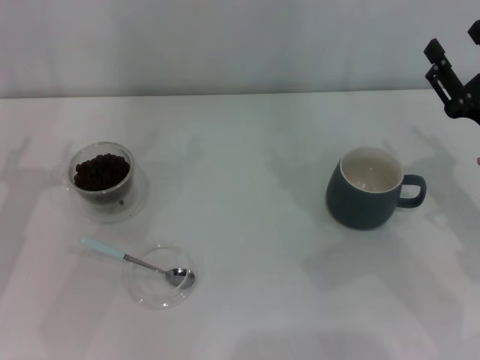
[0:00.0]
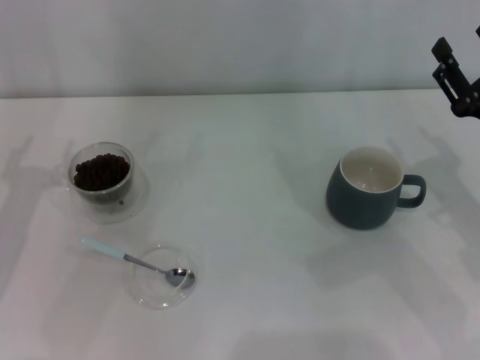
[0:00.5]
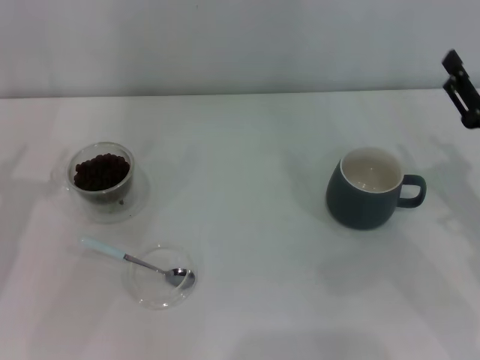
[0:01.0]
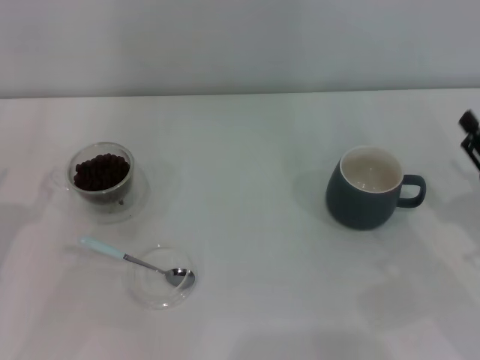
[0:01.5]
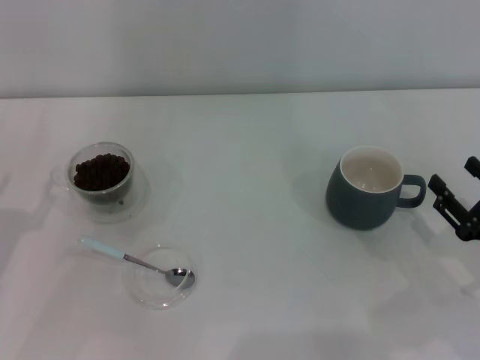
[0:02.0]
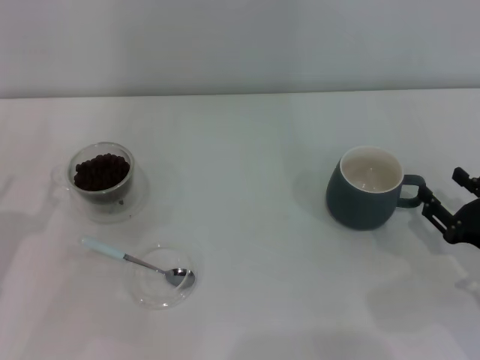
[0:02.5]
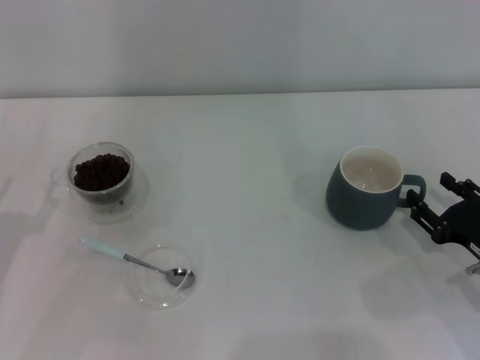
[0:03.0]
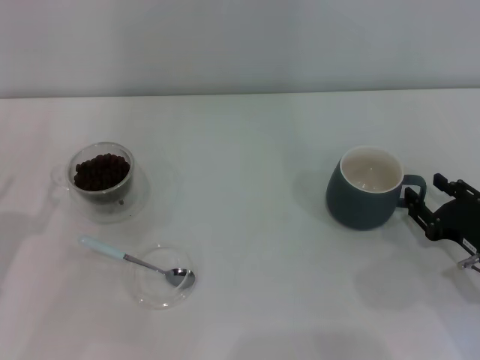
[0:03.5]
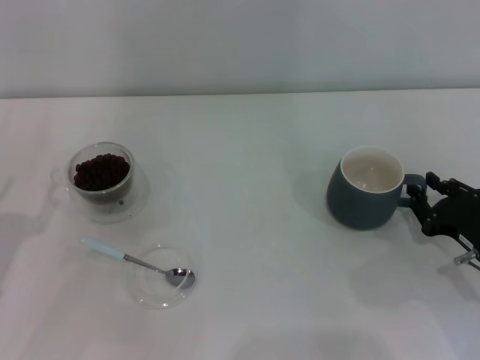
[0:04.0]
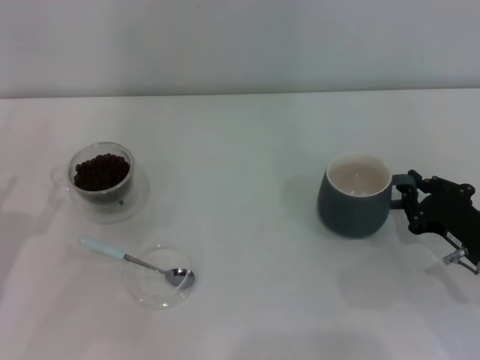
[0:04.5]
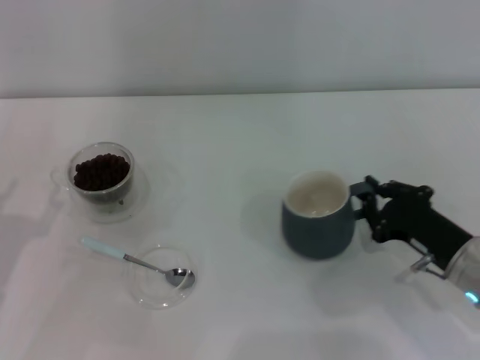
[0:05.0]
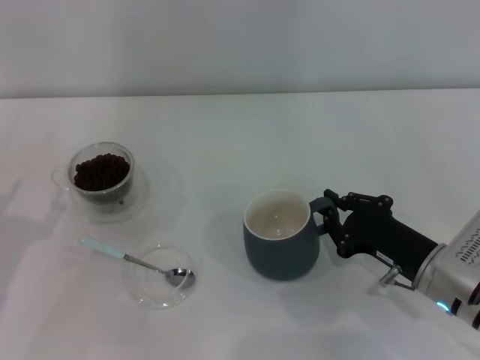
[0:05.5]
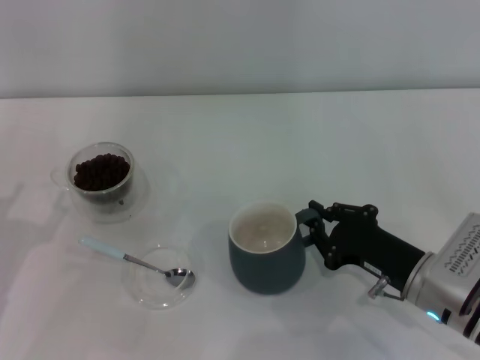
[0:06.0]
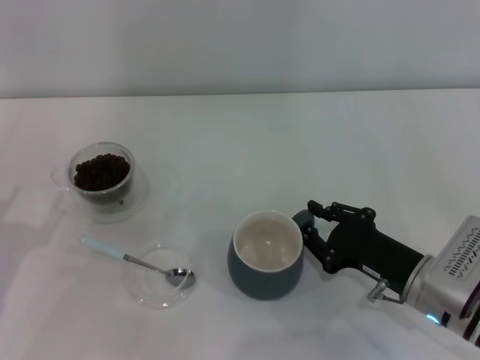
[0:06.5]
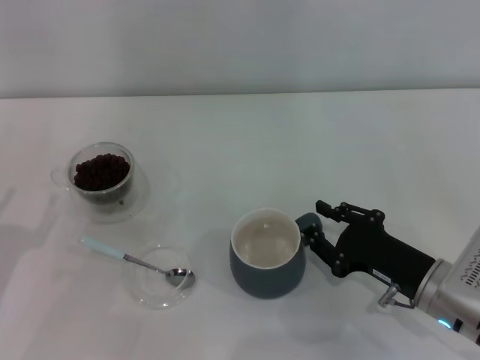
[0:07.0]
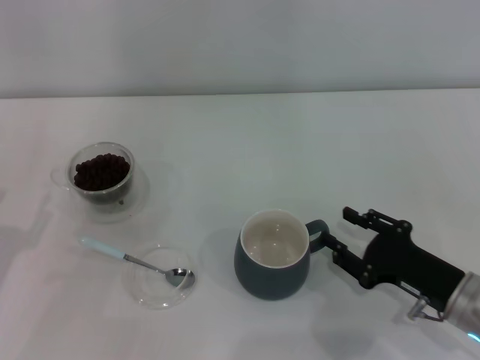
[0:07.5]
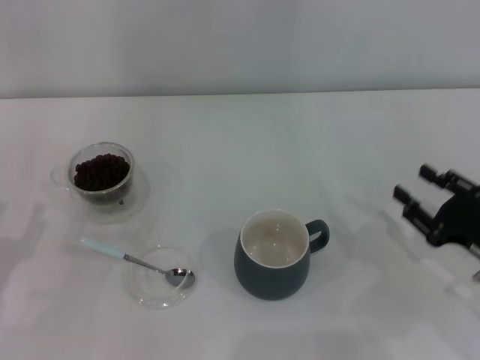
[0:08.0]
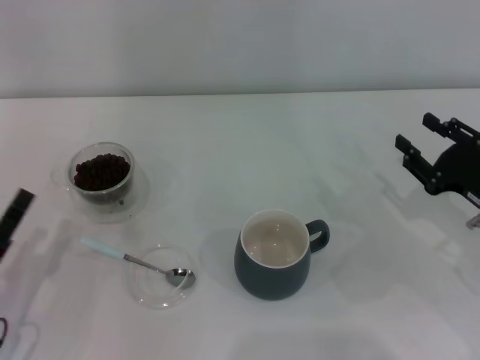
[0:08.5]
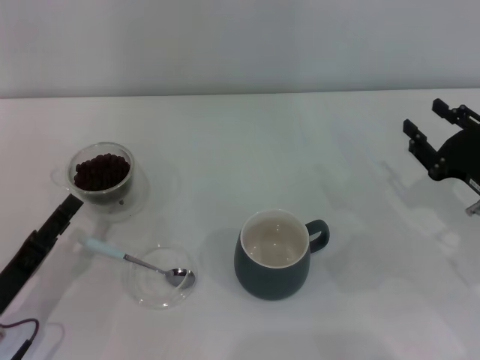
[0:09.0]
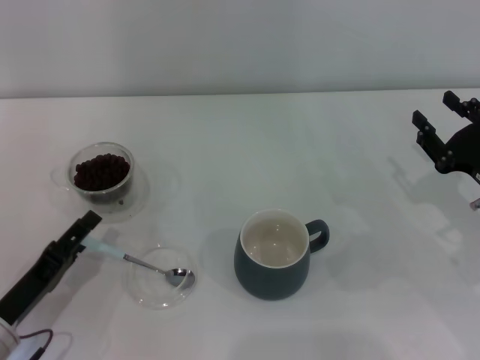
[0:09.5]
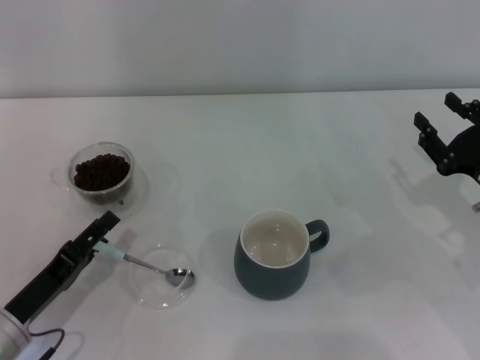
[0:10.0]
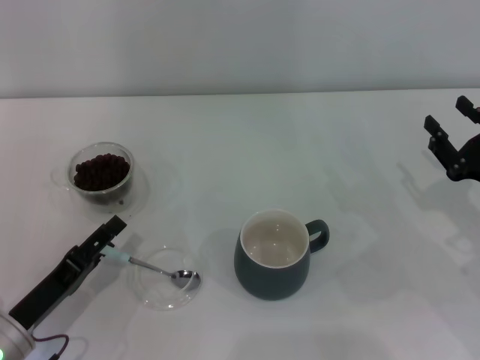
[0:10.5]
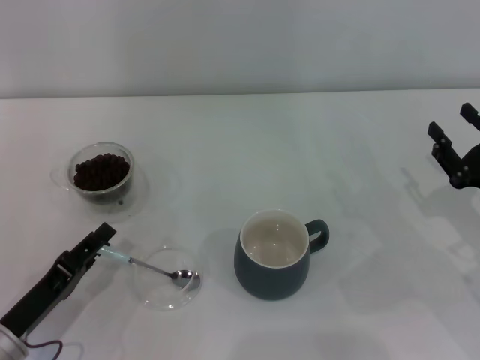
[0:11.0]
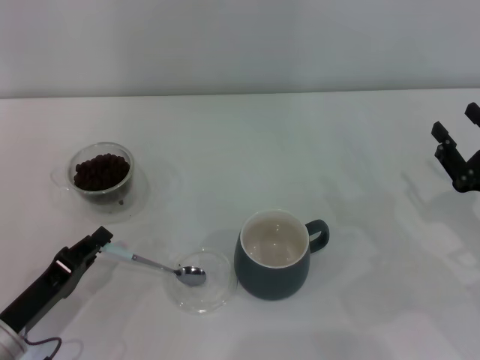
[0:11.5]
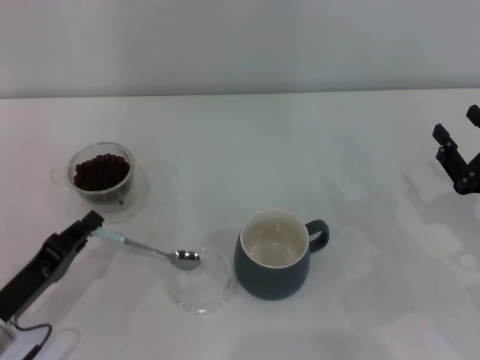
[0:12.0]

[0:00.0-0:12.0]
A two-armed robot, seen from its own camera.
Task of the whole recording: Use a blue spoon to take out the coffee beans from the glass and pour them into the gray cup.
Step, 0:00.0 to 0:07.5: Move the cup to the center of view with the left gripper.
0:00.0 to 0:02.0: The right gripper shifts about 10 cm backward and downward.
0:02.0 to 0:04.0: The right gripper closes its fingers.
0:04.0 to 0:06.0: The right gripper goes approximately 10 cm to the left, and closes its fingers.
0:06.0 to 0:08.0: The right gripper heads to the right, covering approximately 10 cm, and opens its fingers.
0:08.0 to 0:10.0: The right gripper goes approximately 5 cm forward. Meanwhile the left gripper is displaced to the right by about 5 cm.
0:10.0 to 0:12.0: The left gripper closes its fingers.

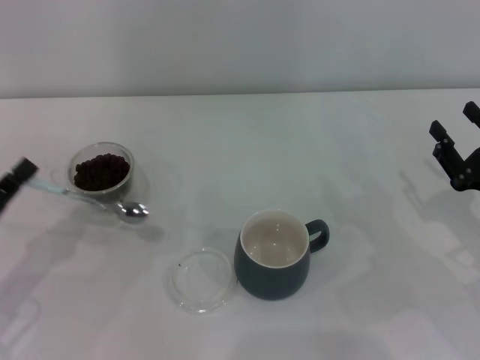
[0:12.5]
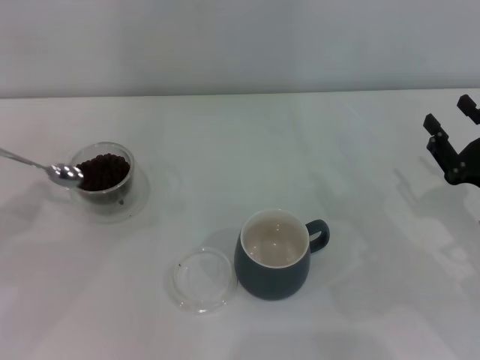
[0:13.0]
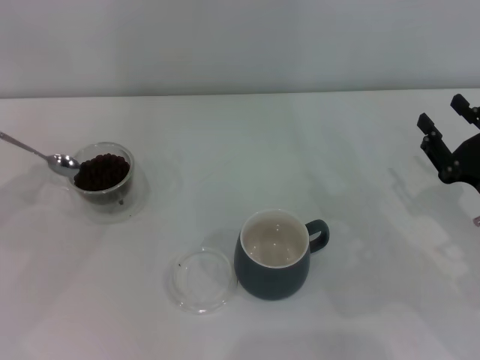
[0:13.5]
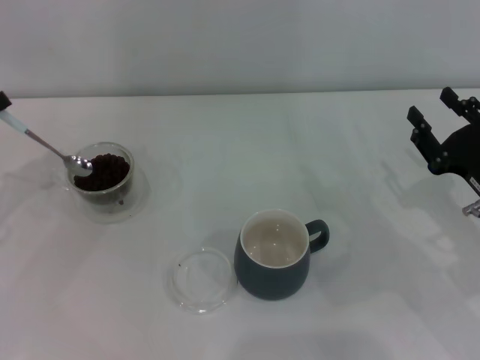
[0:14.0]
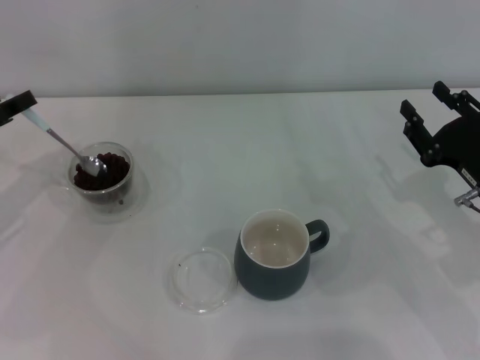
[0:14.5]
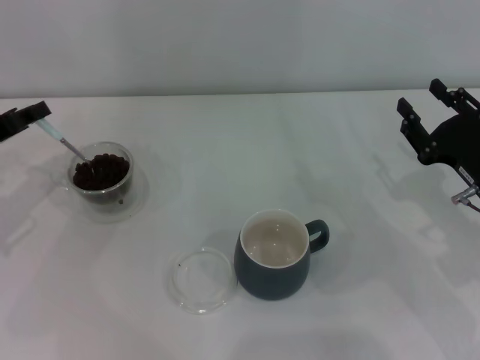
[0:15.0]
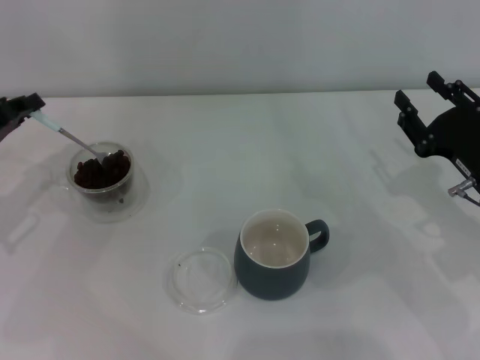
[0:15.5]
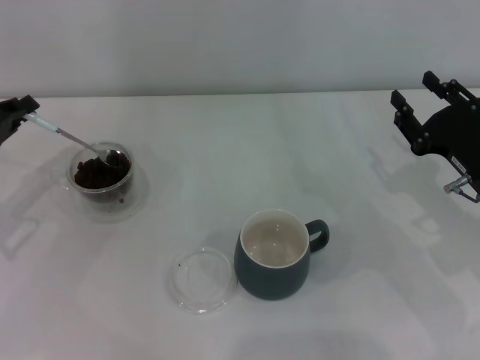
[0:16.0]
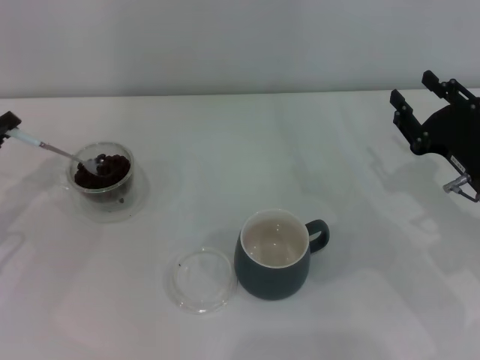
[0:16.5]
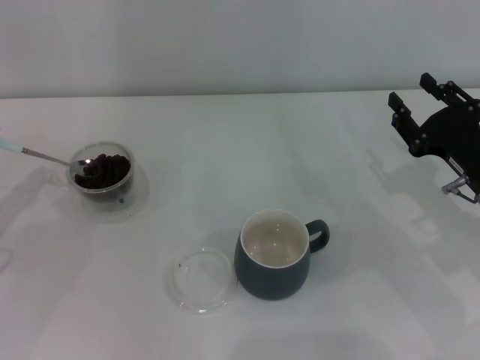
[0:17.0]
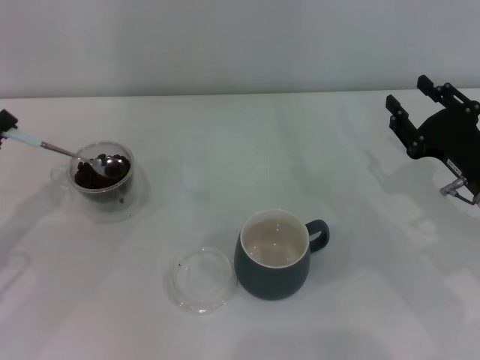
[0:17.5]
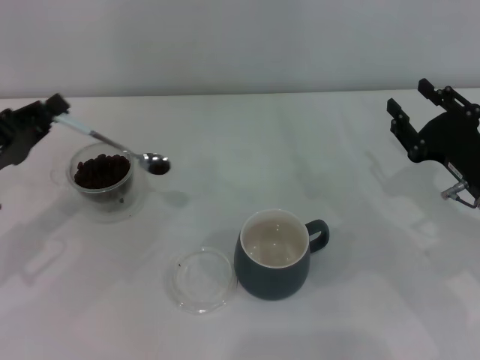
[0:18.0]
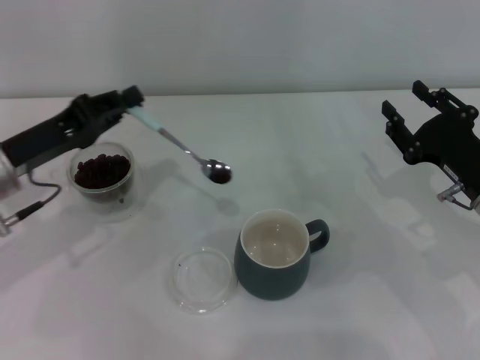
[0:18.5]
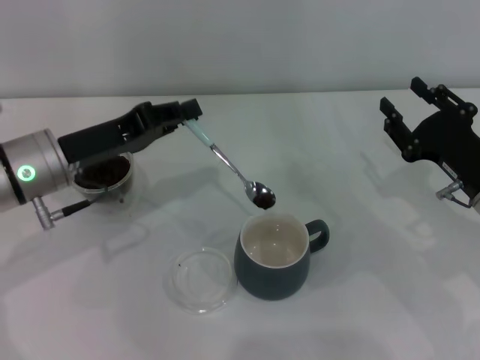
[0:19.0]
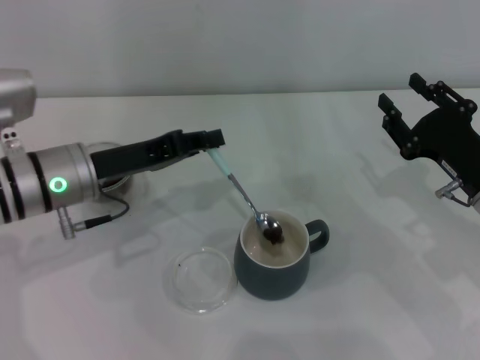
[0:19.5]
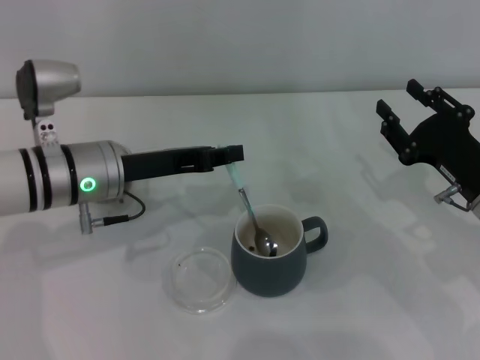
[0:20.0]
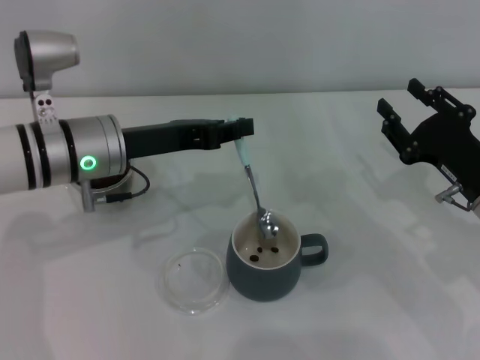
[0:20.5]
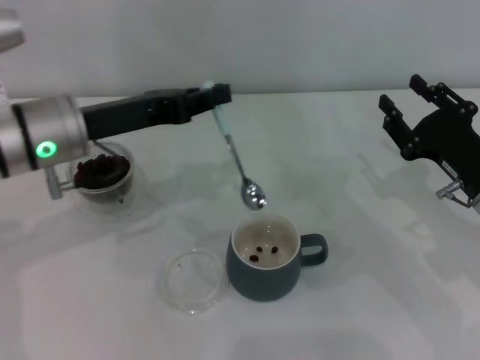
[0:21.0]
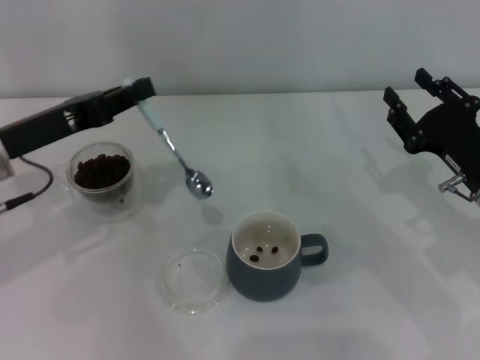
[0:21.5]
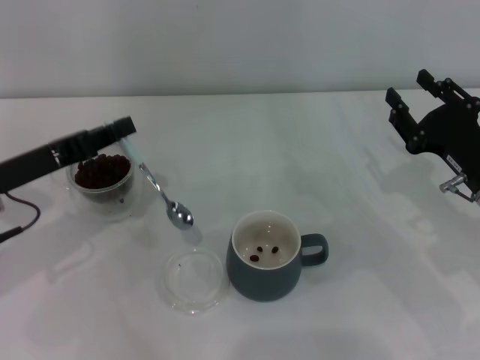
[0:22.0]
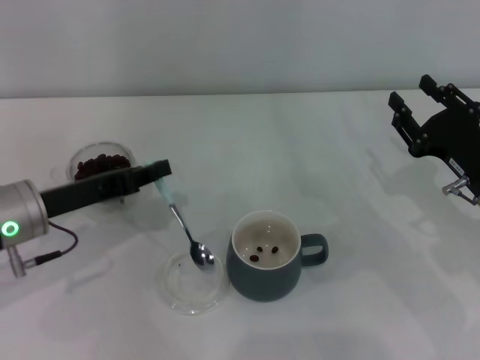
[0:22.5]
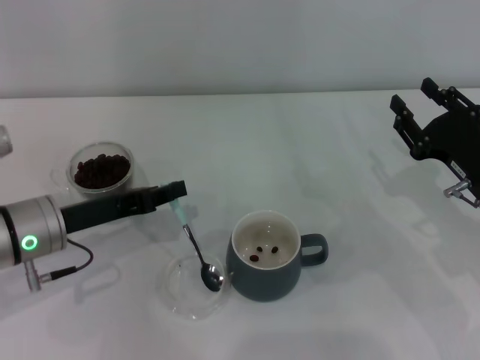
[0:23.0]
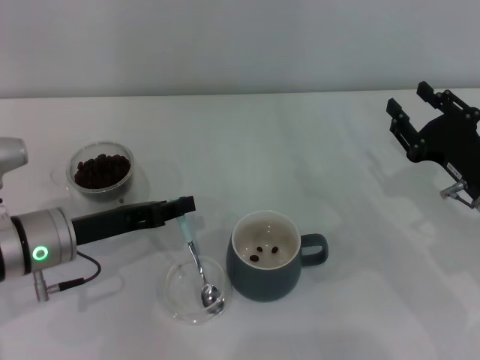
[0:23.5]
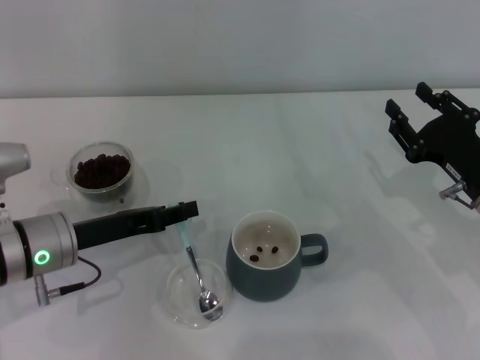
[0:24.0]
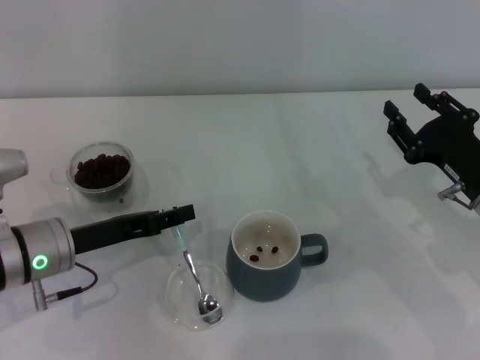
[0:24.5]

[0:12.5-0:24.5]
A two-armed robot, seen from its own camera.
Task of the whole recording: Use a blue spoon to take out the coffee beans from the glass and pour them into the gray cup.
0:12.5 to 0:14.5: The left gripper shifts approximately 15 cm forward and upward.
0:16.5 to 0:18.5: The left gripper heads to the right, covering some 10 cm.
0:18.5 to 0:20.5: The left gripper goes some 10 cm to the right.
0:20.5 to 0:22.5: The left gripper shifts about 10 cm to the left.
0:22.5 to 0:24.5: The left gripper opens up.

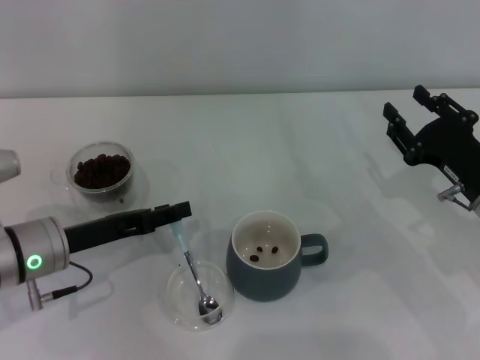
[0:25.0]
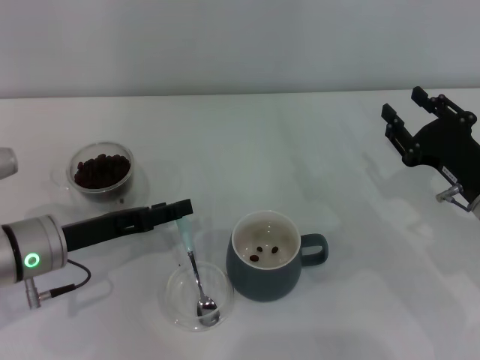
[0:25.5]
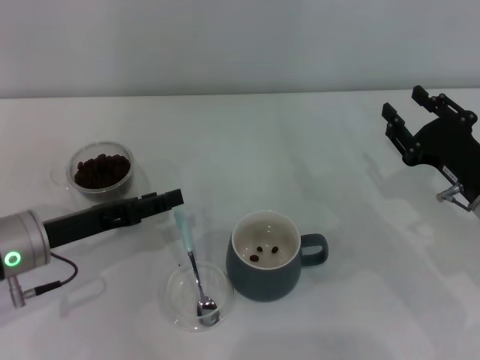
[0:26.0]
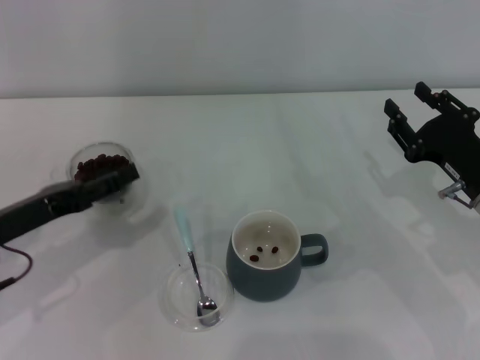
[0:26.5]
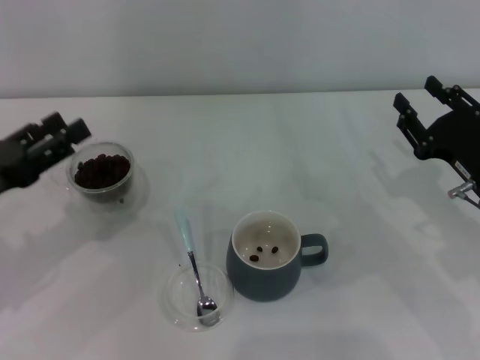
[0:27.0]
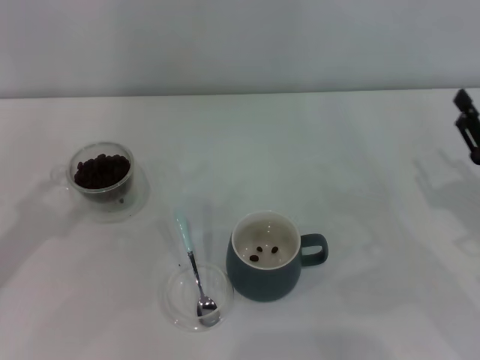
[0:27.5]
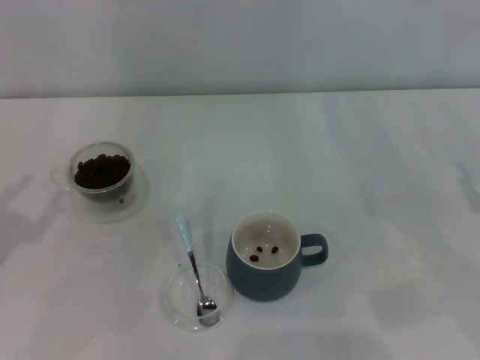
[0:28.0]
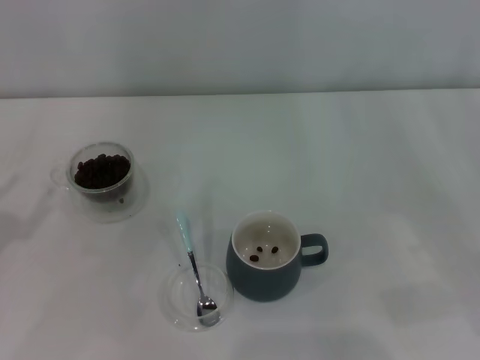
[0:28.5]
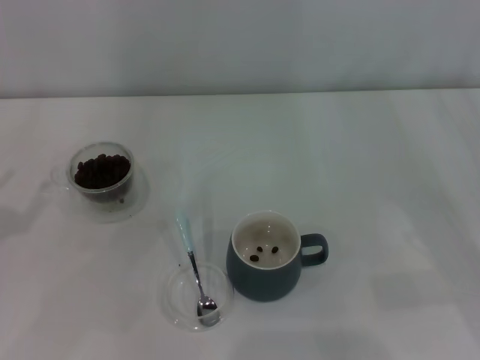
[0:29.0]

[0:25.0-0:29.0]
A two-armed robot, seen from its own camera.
Task of the whole recording: Use a blue spoon to take out the coffee beans from the glass and pour them into the gray cup.
0:25.0 to 0:27.0: The left gripper goes approximately 10 cm to the left and upward, and opens.
0:27.0 to 0:29.0: The left gripper travels to the left by some 5 cm, while the right gripper heads to the right, covering about 10 cm.
